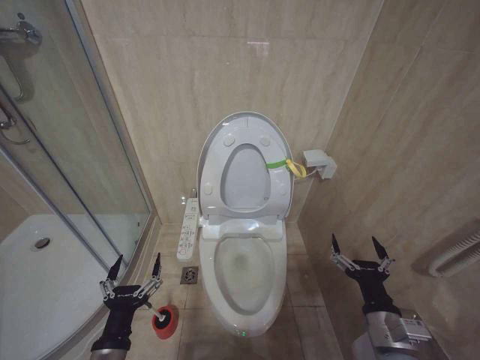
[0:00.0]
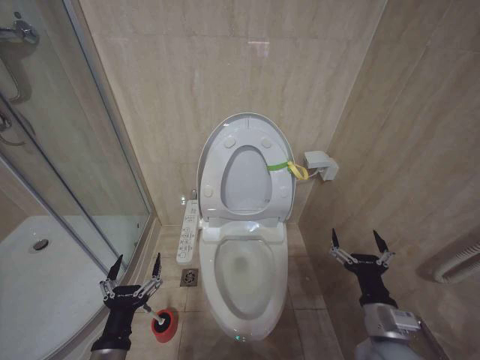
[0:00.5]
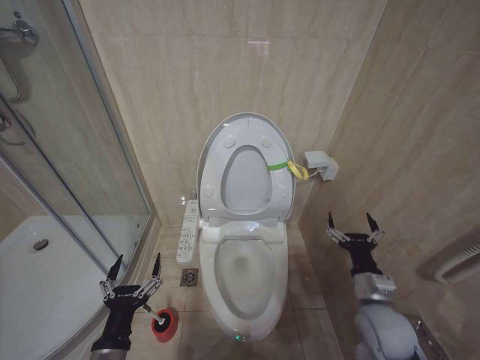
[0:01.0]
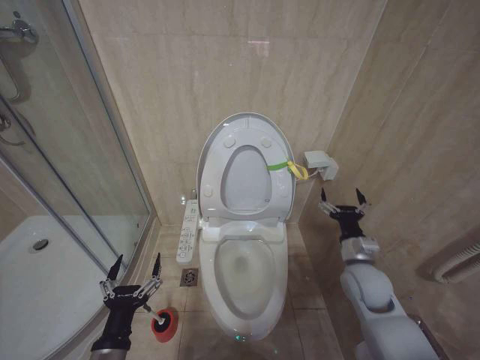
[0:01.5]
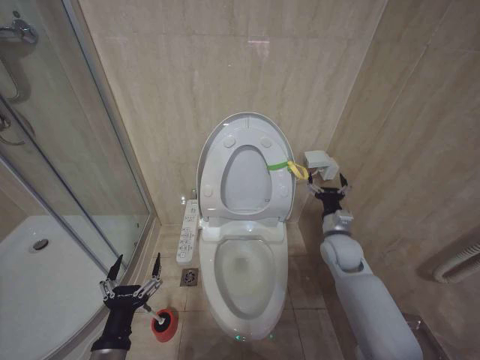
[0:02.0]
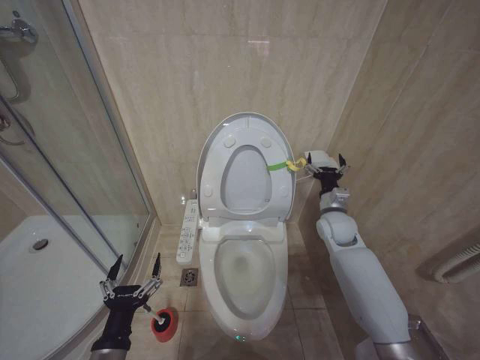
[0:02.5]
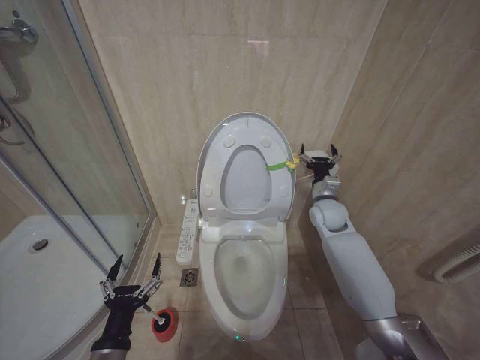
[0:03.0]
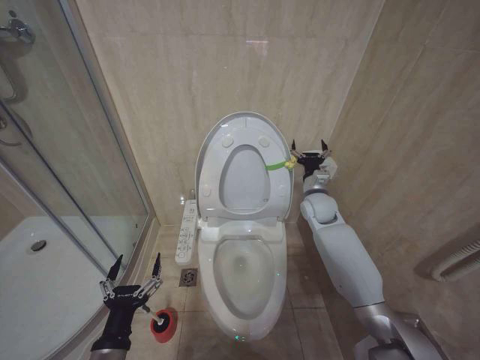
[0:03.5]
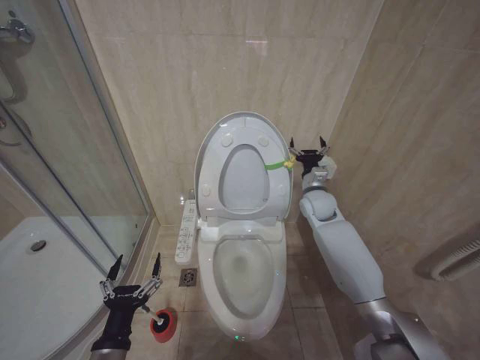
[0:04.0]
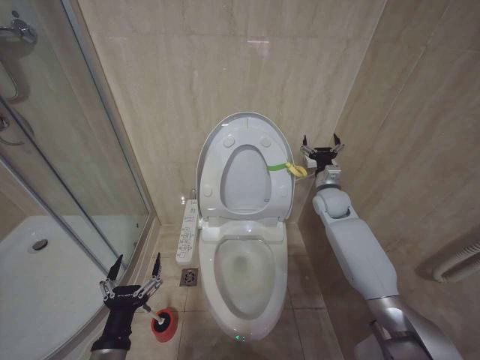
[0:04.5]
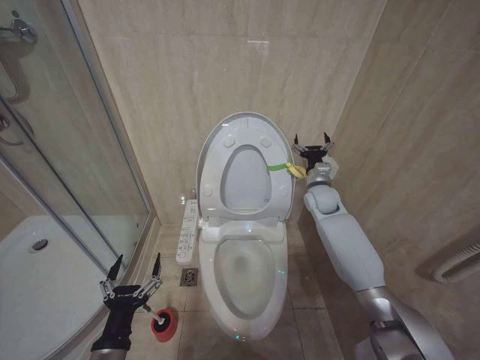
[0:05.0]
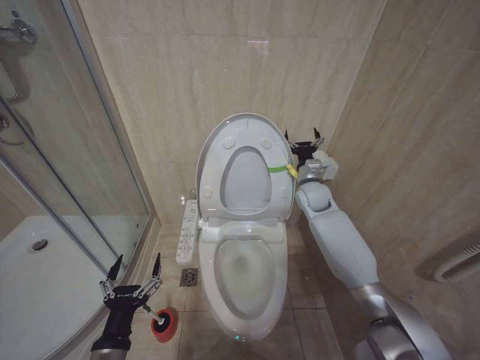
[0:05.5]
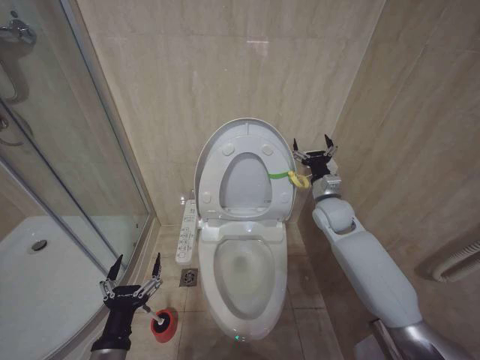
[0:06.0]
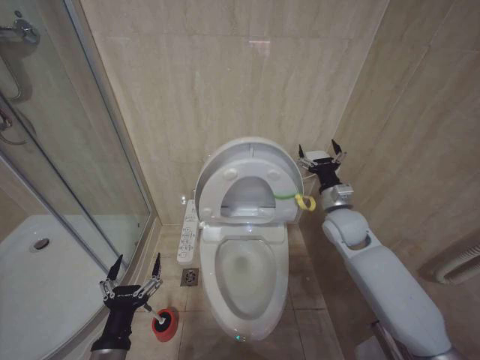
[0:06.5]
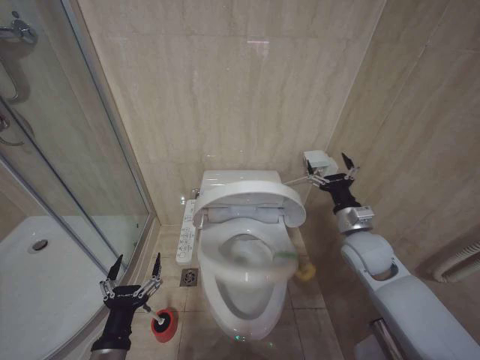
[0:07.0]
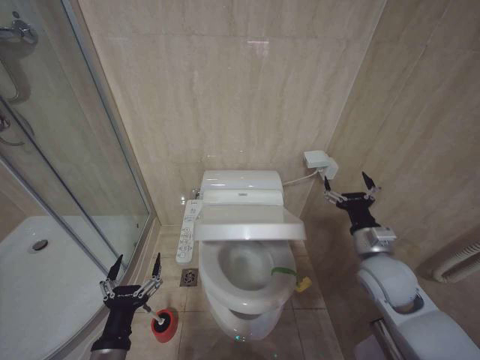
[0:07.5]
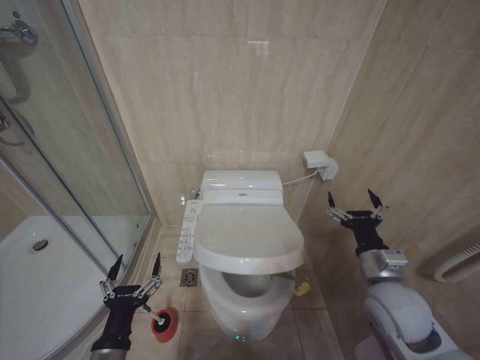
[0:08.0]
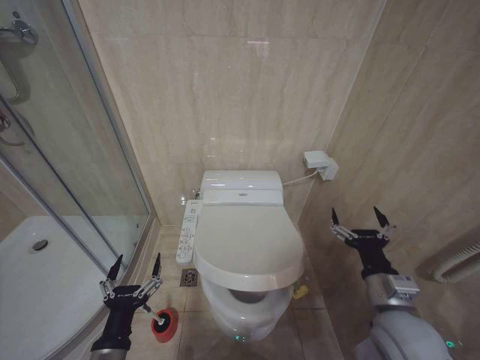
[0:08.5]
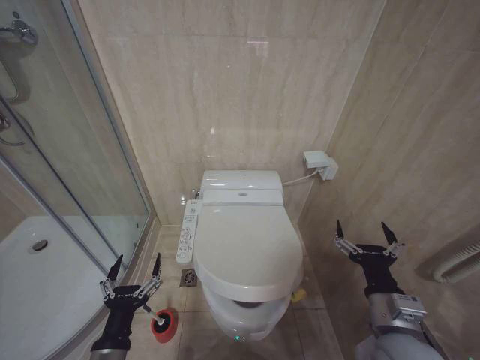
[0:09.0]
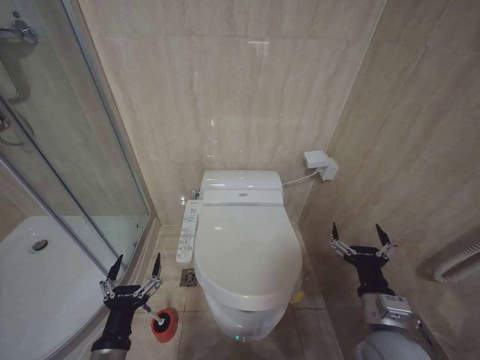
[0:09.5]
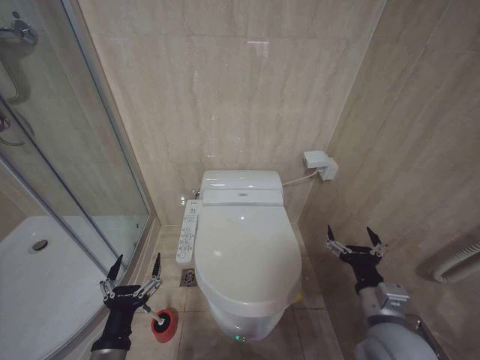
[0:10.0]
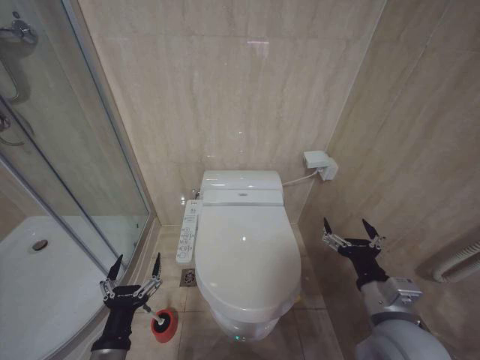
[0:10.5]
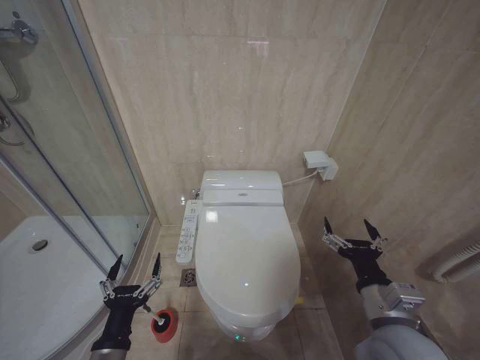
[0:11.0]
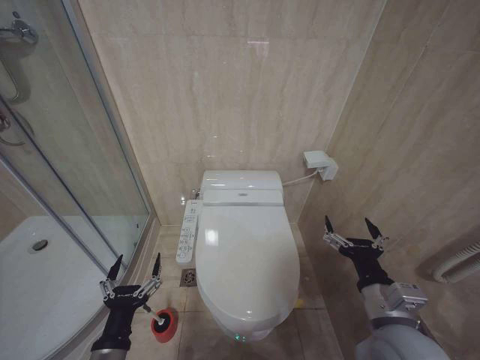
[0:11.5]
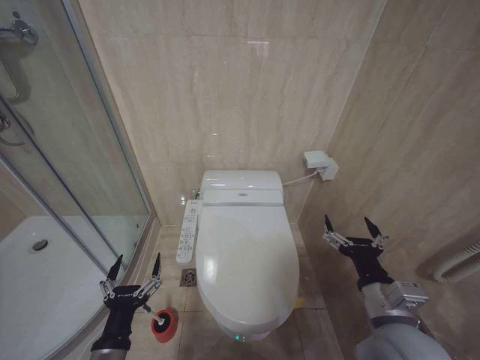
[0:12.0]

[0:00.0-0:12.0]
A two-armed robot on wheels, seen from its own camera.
Task of the whole recording: Open the toilet lid, clean the toilet bowl with a toilet brush, close the toilet lid, and flush.
0:00.0 to 0:02.0: The right gripper is displaced forward by roughly 25 cm.
0:02.0 to 0:04.0: The right gripper heads forward and upward, covering roughly 15 cm.
0:04.0 to 0:06.0: The right gripper changes place by some 5 cm.
0:06.0 to 0:08.0: The right gripper shifts about 20 cm backward.
0:08.0 to 0:10.0: The right gripper shifts about 5 cm backward.
0:10.0 to 0:12.0: The grippers make only small movements.

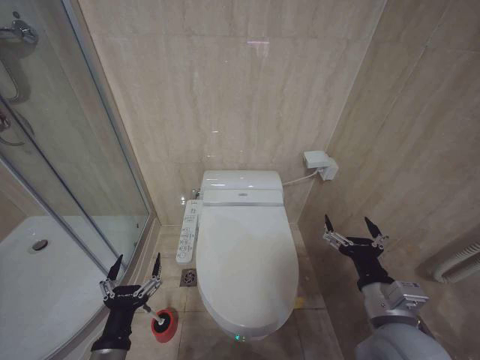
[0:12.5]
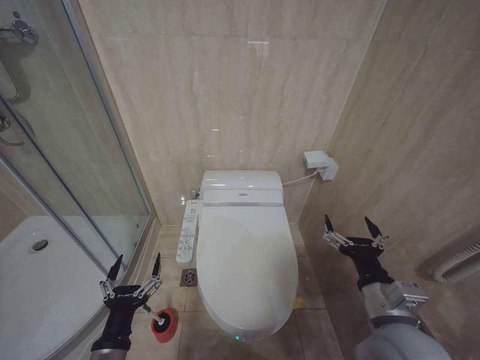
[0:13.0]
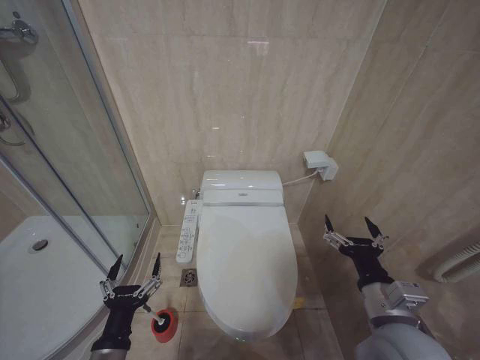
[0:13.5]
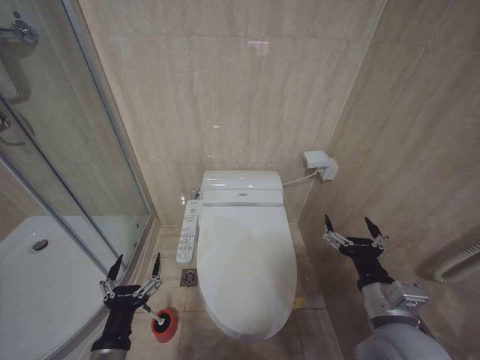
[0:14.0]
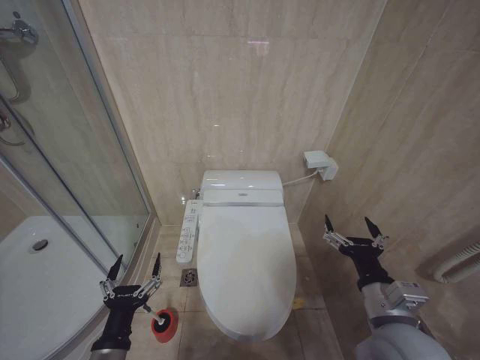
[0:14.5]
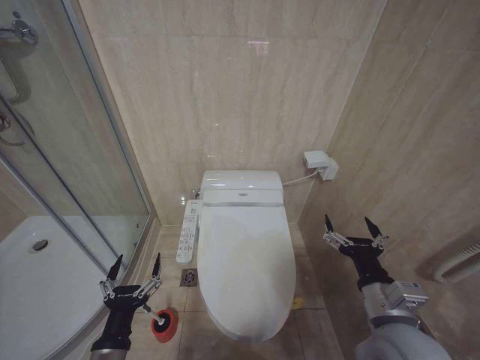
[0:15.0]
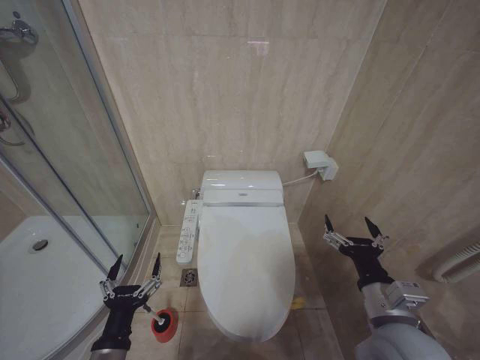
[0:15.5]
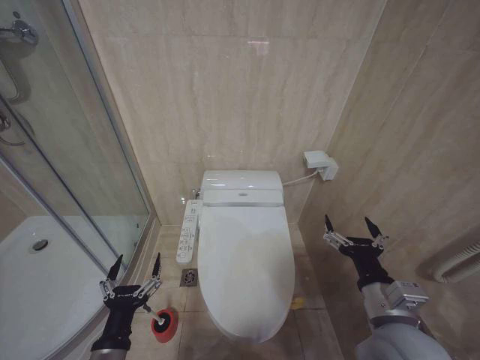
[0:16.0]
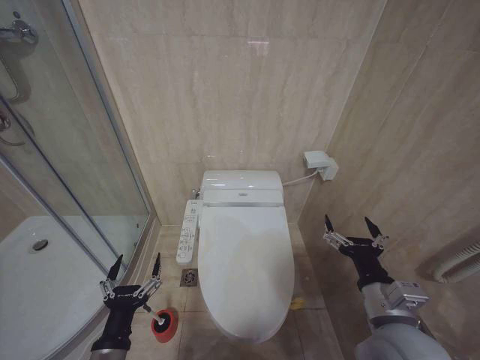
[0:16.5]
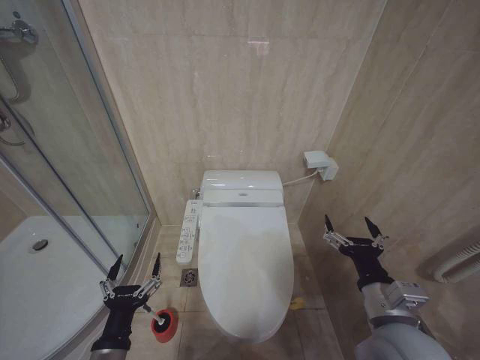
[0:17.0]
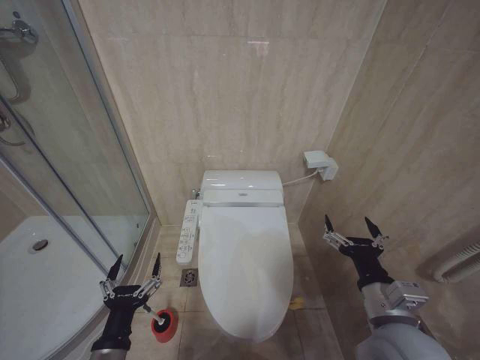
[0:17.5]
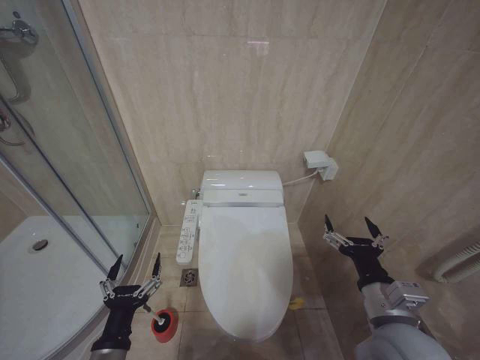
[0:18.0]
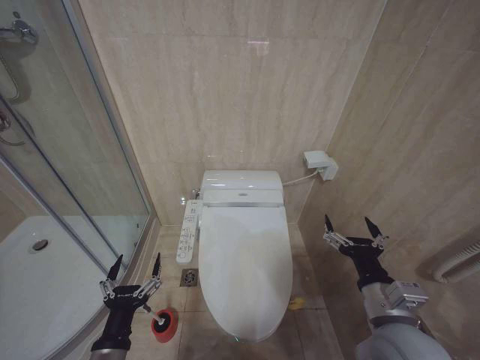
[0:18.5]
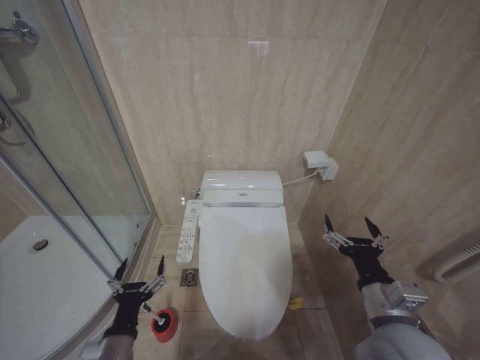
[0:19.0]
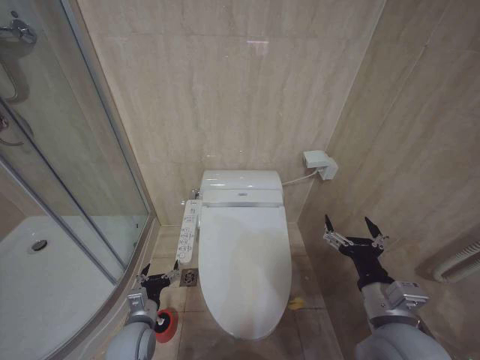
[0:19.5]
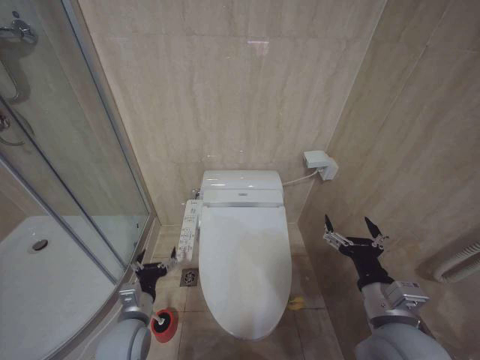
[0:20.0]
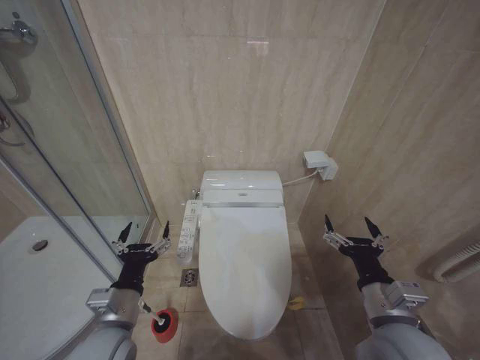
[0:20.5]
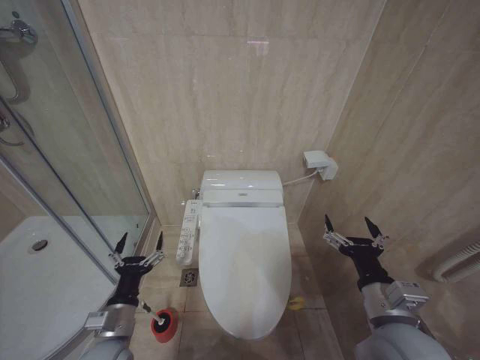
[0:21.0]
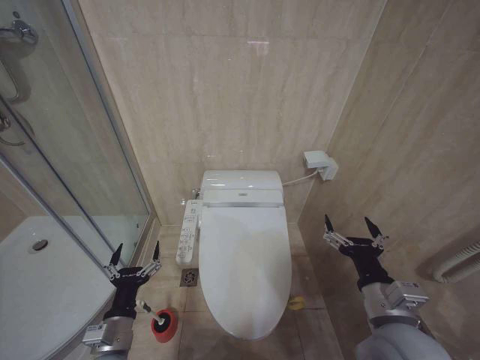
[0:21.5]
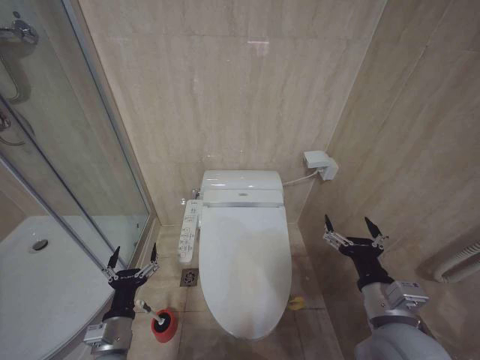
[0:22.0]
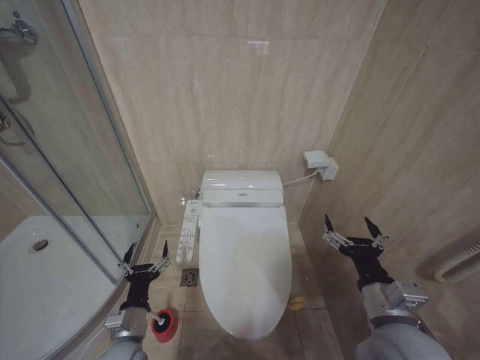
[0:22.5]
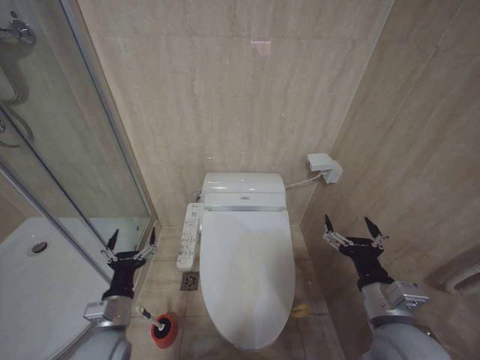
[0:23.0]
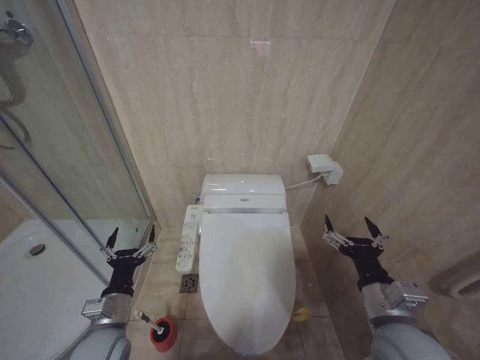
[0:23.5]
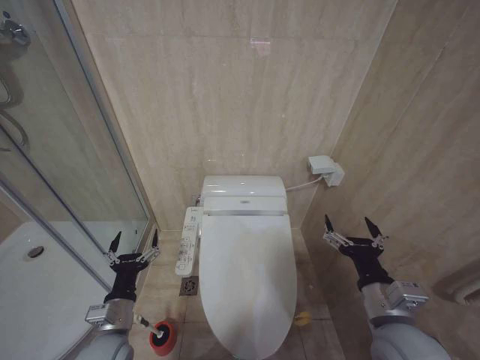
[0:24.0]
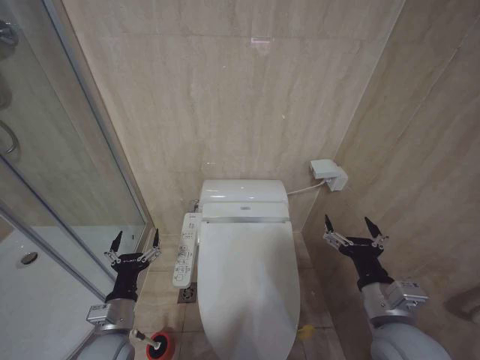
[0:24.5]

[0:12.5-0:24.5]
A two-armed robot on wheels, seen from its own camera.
Task of the whole recording: Open the toilet lid, clean the toilet bowl with a toilet brush, close the toilet lid, and flush.
0:12.5 to 0:18.5: Both grippers stay put.
0:18.5 to 0:20.5: The left gripper is displaced forward and upward by about 10 cm.
0:20.5 to 0:22.5: The left gripper travels downward by approximately 10 cm.
0:22.5 to 0:24.5: The grippers make only small movements.

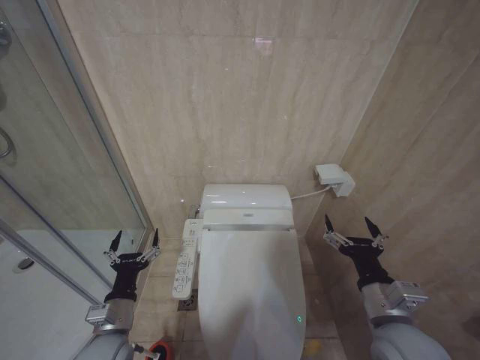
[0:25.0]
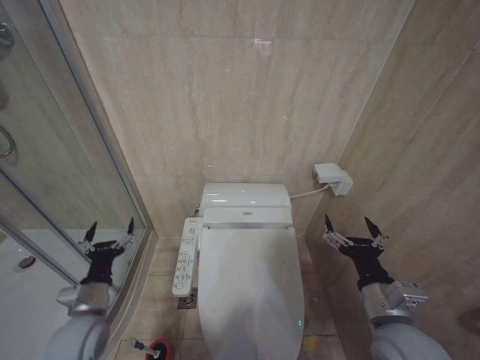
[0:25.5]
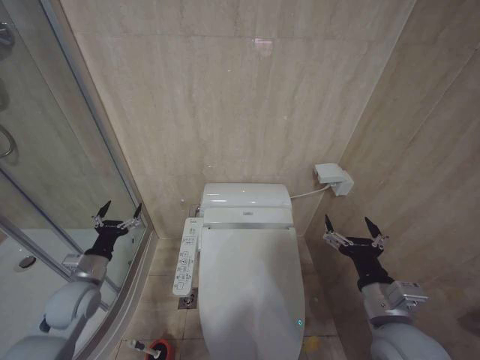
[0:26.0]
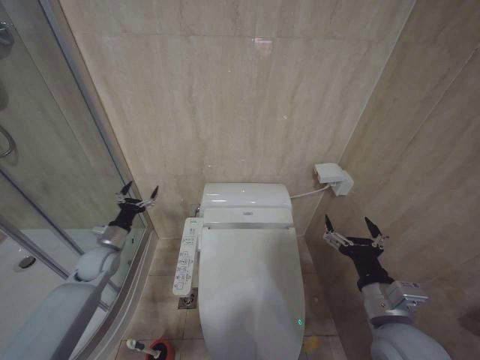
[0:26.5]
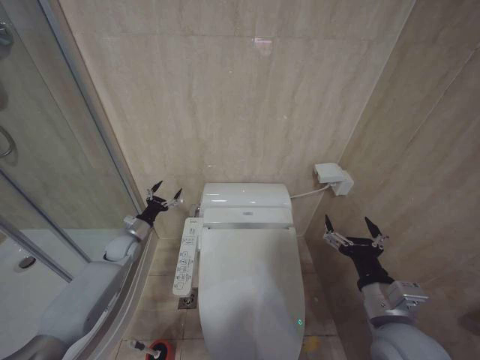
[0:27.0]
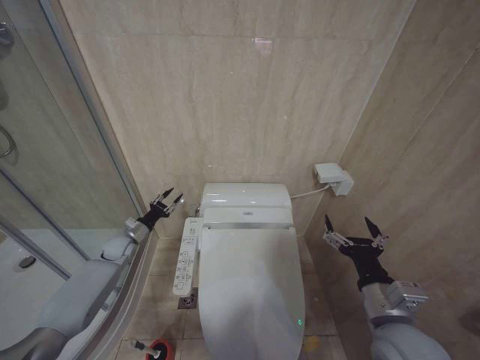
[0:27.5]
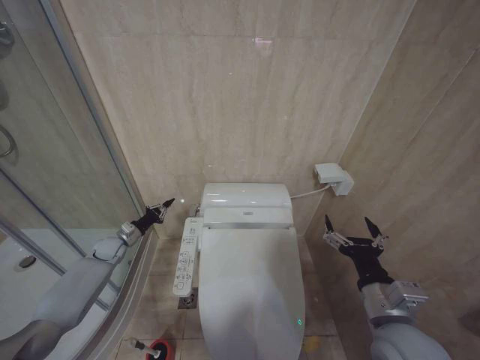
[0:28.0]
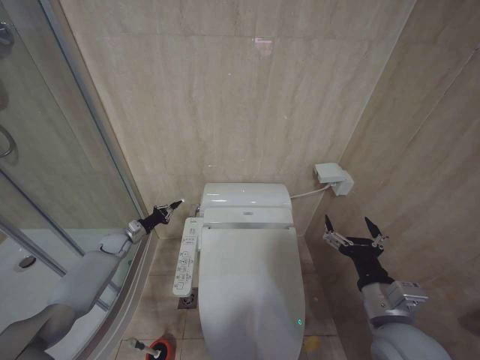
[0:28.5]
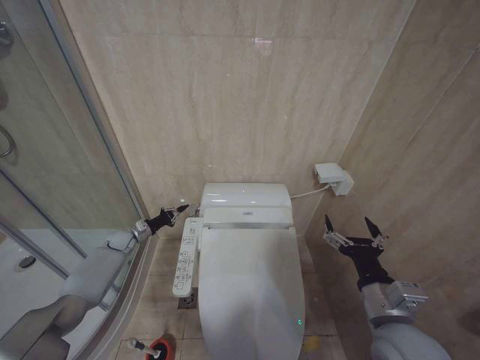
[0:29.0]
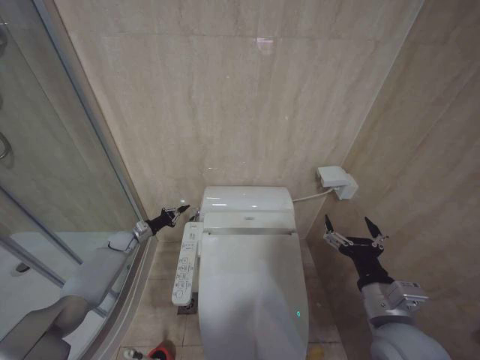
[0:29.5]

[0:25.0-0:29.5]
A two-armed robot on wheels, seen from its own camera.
Task of the whole recording: Open the toilet lid, clean the toilet bowl with a toilet brush, close the toilet lid, and flush.
0:25.0 to 0:27.0: The left gripper goes approximately 25 cm forward.
0:27.0 to 0:29.5: The left gripper is displaced forward by about 5 cm, and closes.
